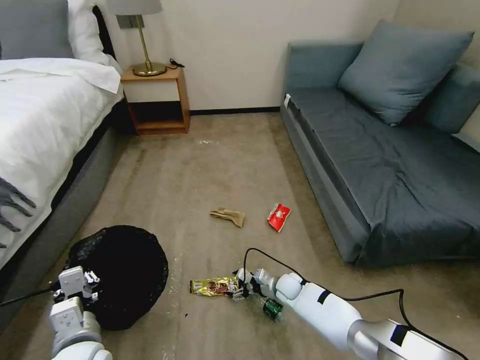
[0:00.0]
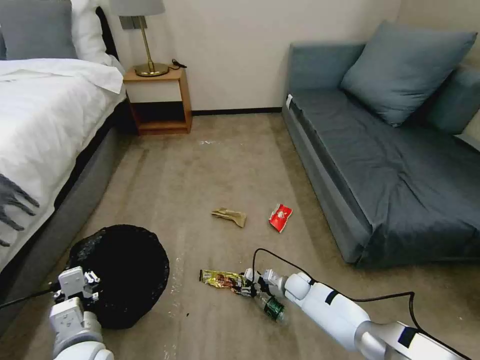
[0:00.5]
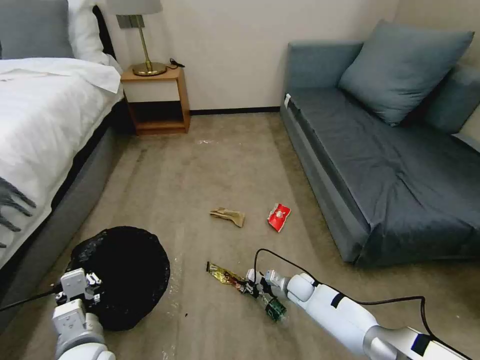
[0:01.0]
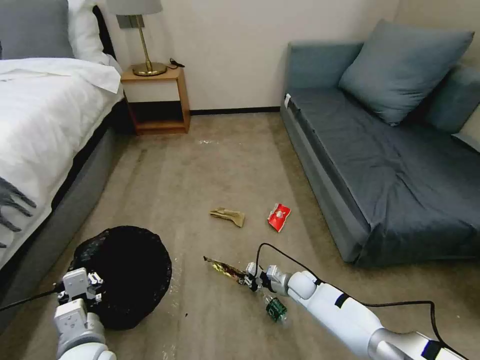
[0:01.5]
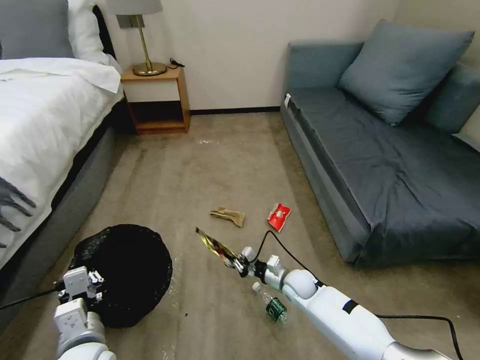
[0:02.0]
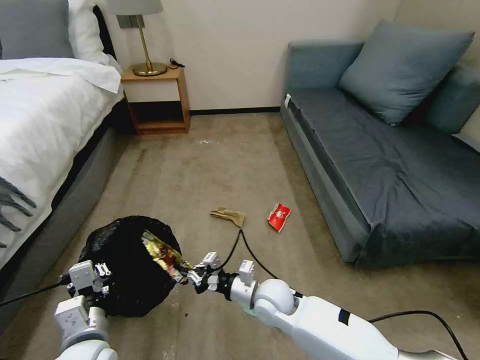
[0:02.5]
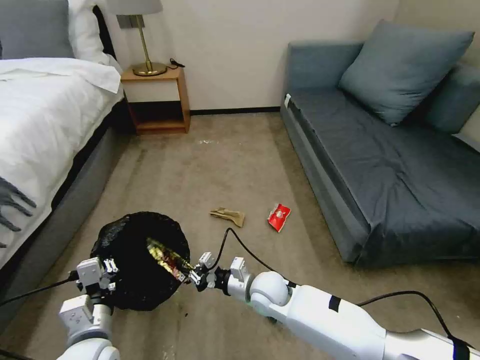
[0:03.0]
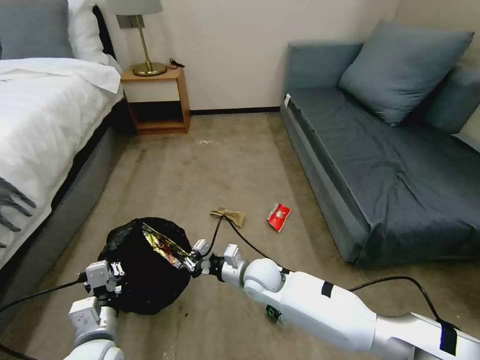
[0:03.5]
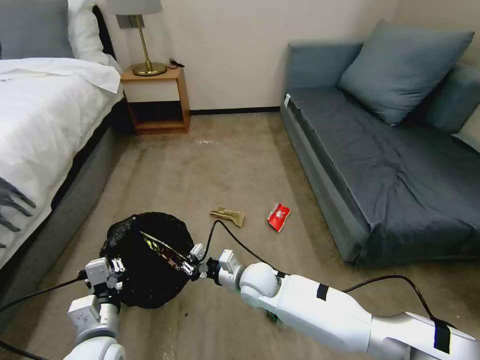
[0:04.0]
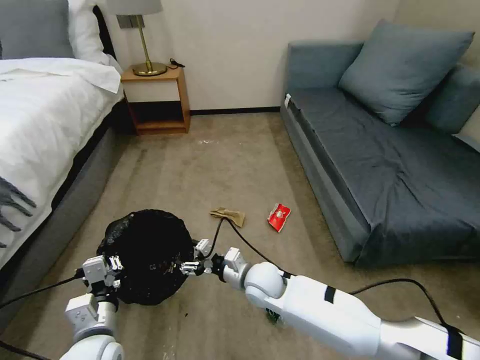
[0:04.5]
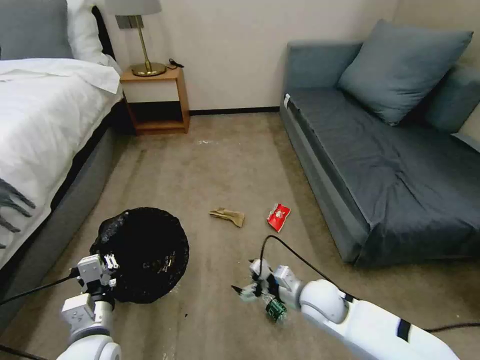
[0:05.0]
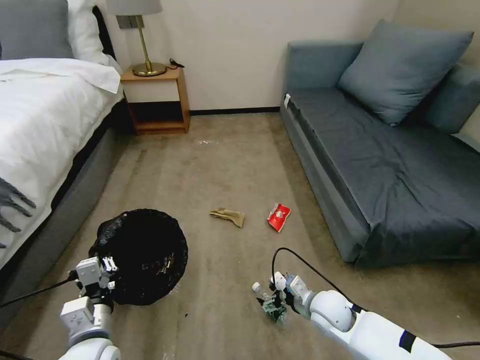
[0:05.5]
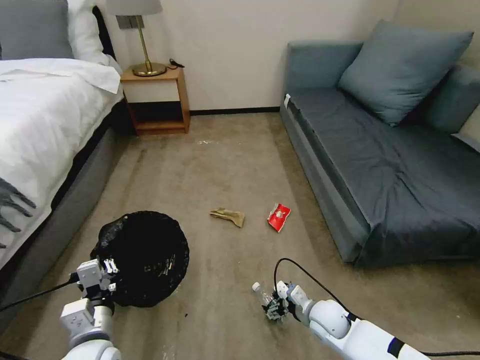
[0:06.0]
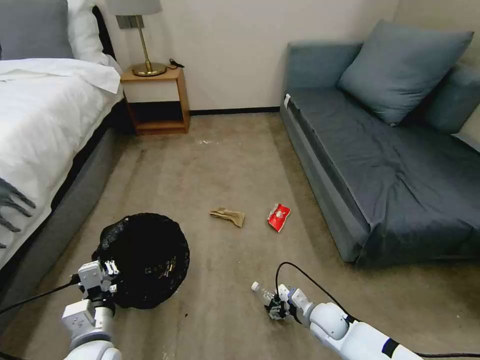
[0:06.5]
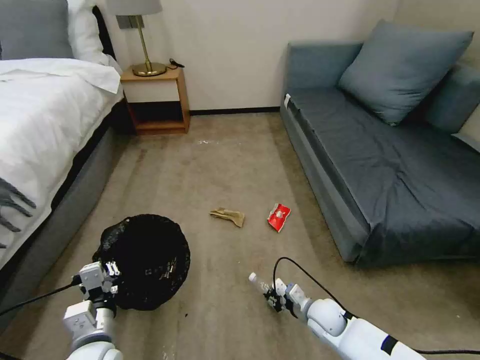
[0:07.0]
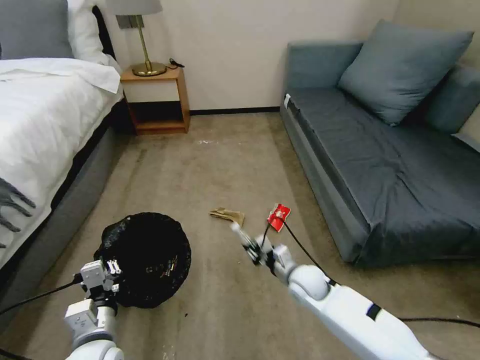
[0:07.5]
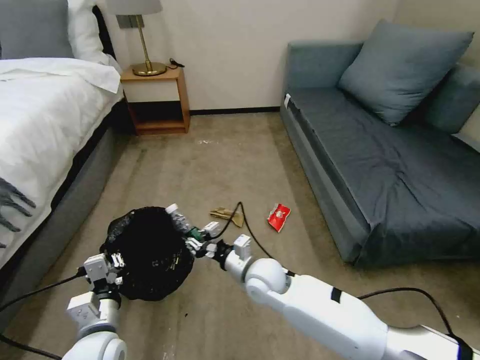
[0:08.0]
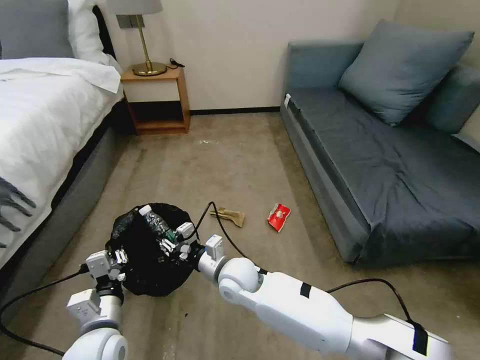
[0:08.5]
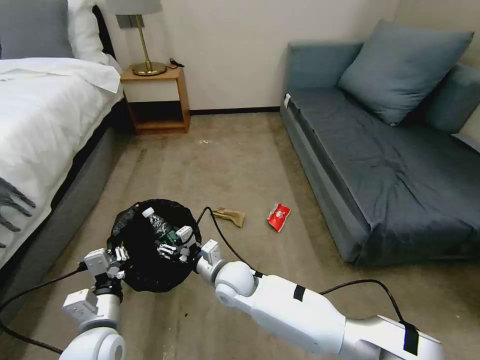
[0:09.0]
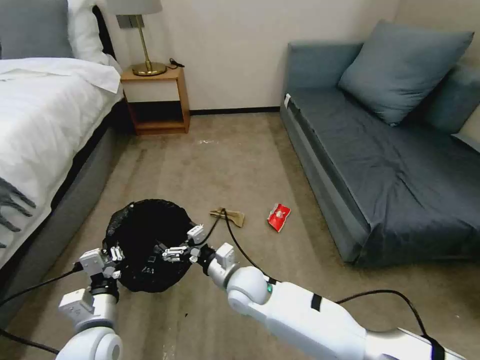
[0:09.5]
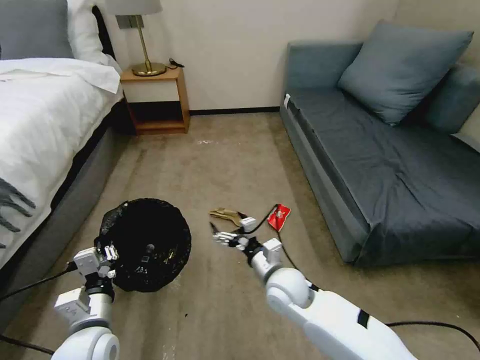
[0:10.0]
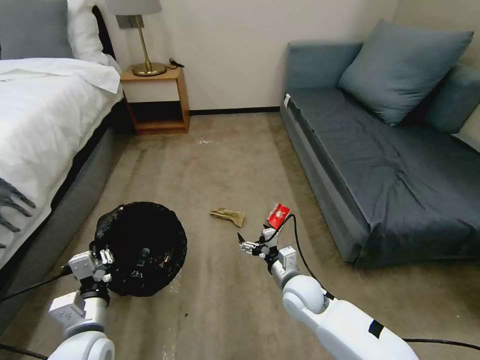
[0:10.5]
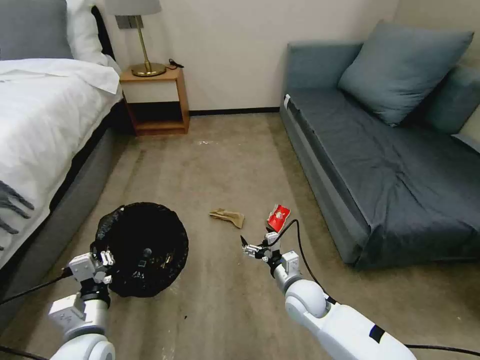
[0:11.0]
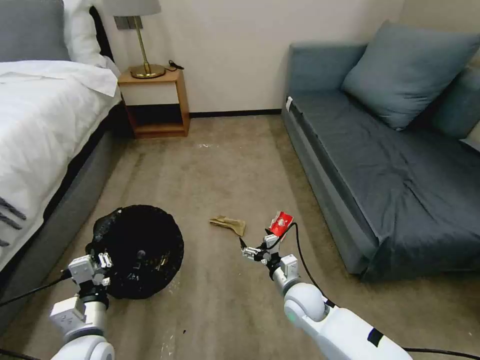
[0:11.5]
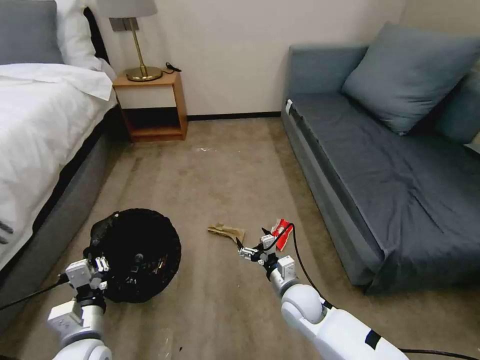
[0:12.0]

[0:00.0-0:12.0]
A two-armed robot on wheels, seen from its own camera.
Task of the whole recording: Pick up the trash bin, then pick up the garbage on the floor and place it into the trash bin.
0:00.0 to 0:02.0: The right gripper moves upward, some 5 cm, and closes up.
0:02.0 to 0:04.0: The right gripper shifts some 15 cm to the left and upward.
0:04.0 to 0:06.0: The right gripper heads to the right and downward, covering roughly 20 cm, and opens up.
0:06.0 to 0:08.0: The right gripper is displaced to the left and upward by about 20 cm, and closes.
0:08.0 to 0:10.0: The right gripper opens its fingers.
0:10.0 to 0:12.0: The right gripper shifts about 5 cm downward.

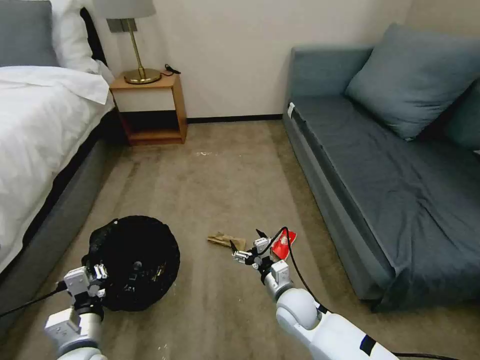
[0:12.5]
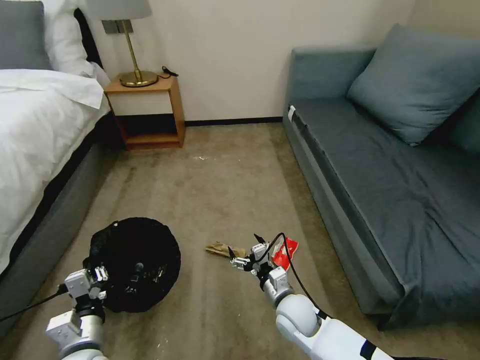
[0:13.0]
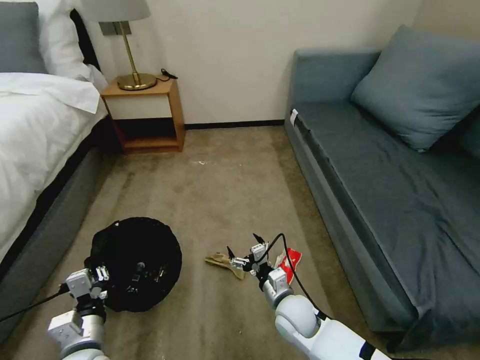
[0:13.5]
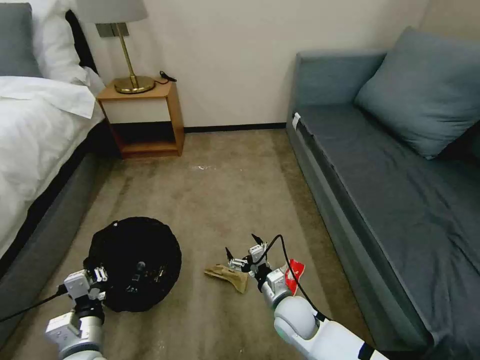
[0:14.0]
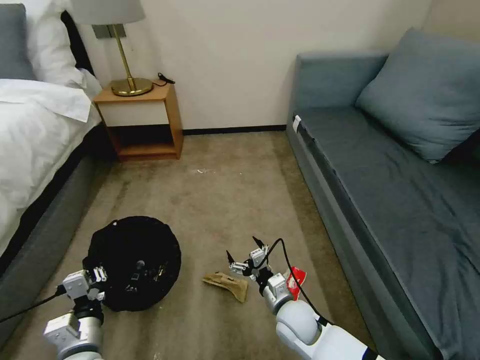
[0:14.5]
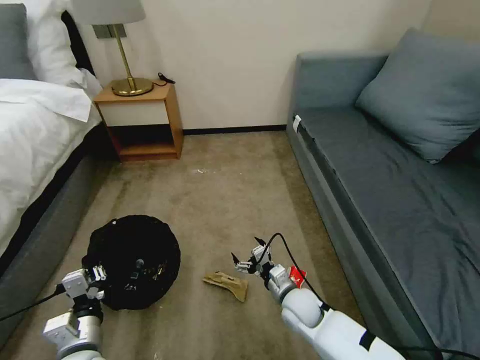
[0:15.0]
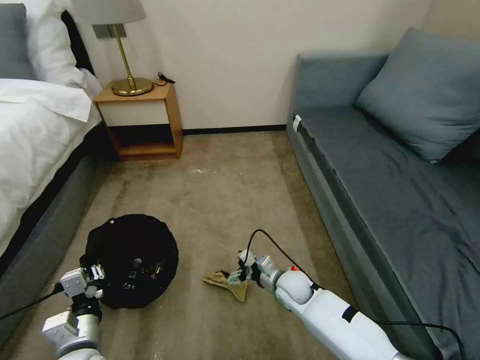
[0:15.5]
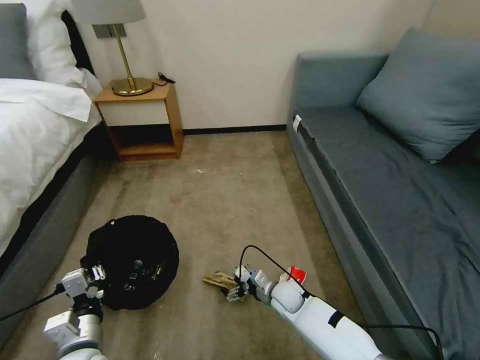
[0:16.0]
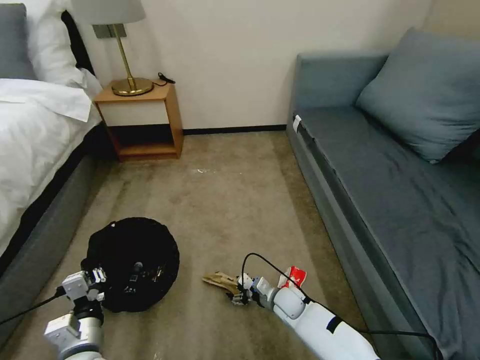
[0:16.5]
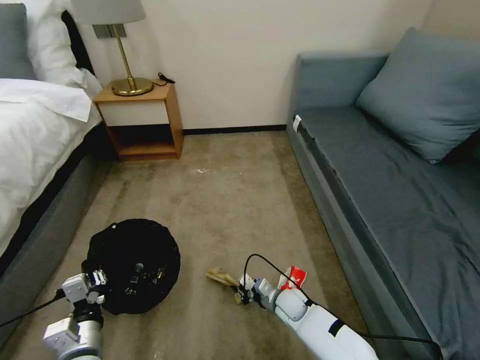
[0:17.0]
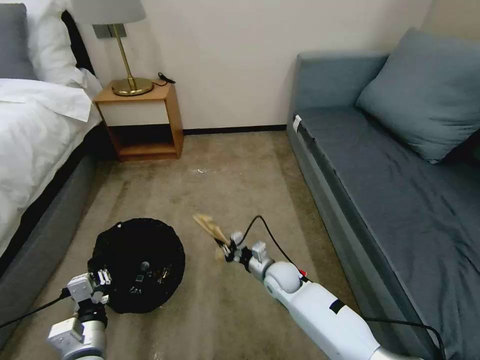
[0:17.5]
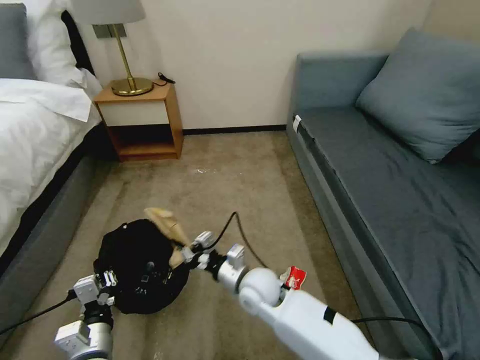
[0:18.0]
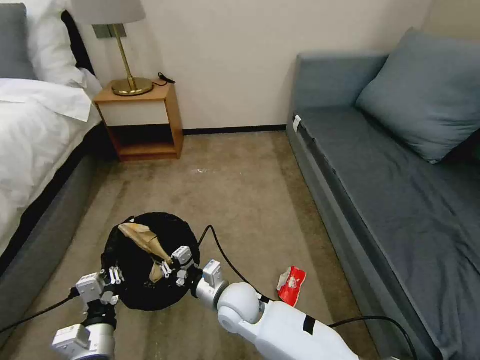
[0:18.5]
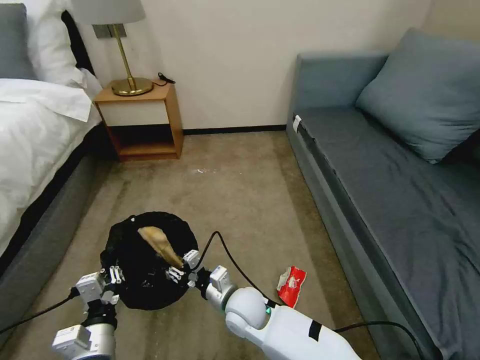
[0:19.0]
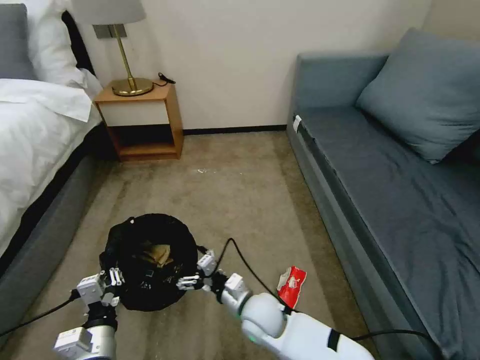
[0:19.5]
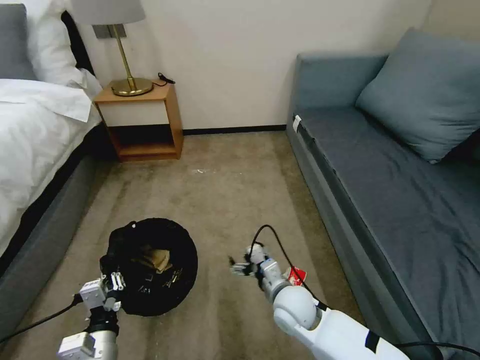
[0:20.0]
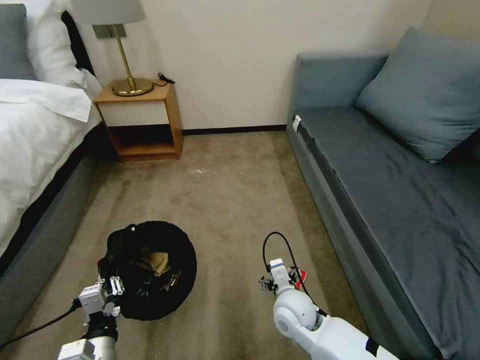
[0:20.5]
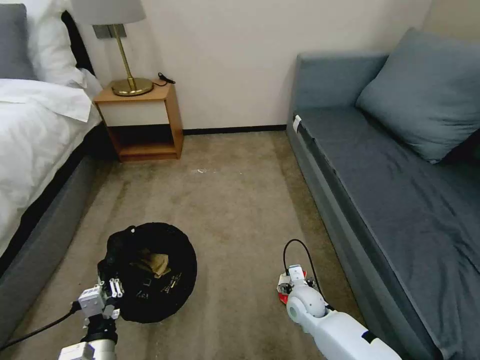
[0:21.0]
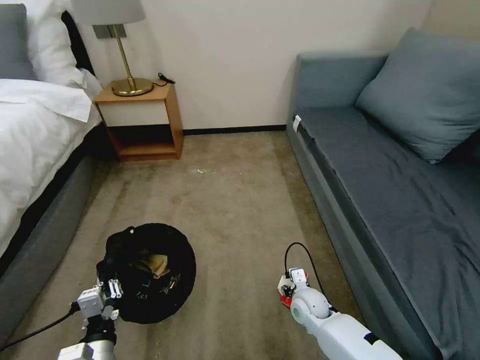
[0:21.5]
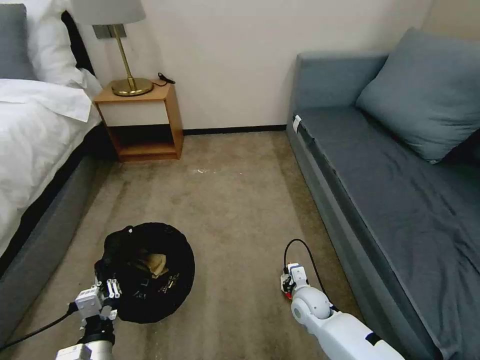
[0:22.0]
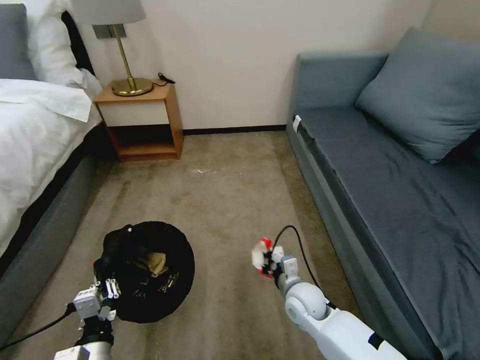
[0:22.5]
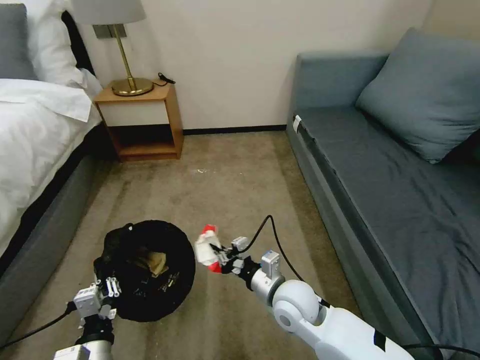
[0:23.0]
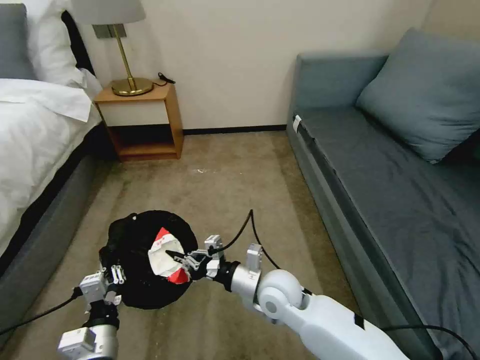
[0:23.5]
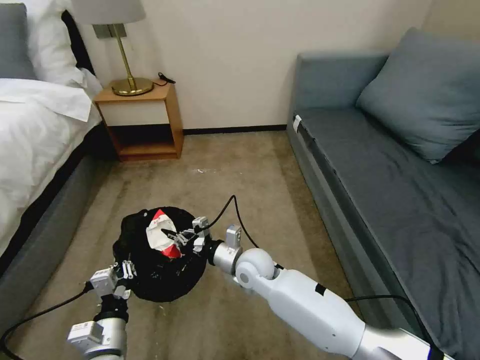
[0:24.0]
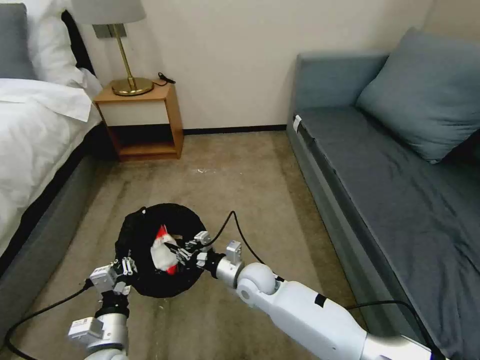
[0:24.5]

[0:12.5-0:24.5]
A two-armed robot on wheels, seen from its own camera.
Task of the whole recording: Pick up the trash bin, then pick up the garbage on the floor and place it into the trash bin.
0:14.5 to 0:16.5: The right gripper is displaced downward and forward by some 15 cm.
0:16.5 to 0:18.5: The right gripper goes roughly 25 cm upward and to the left, and closes.
0:18.5 to 0:20.5: The right gripper is displaced to the right by roughly 15 cm, and opens its fingers.
0:20.5 to 0:22.5: The right gripper goes downward and returns, some 10 cm each way, and closes up.
0:22.5 to 0:24.5: The right gripper is displaced to the left by approximately 15 cm, while the left gripper travels forward by about 5 cm.

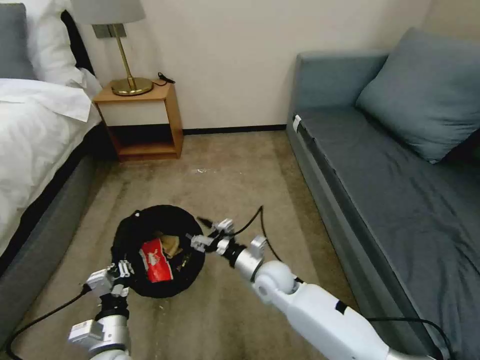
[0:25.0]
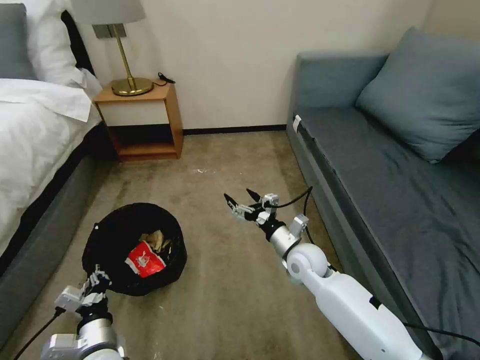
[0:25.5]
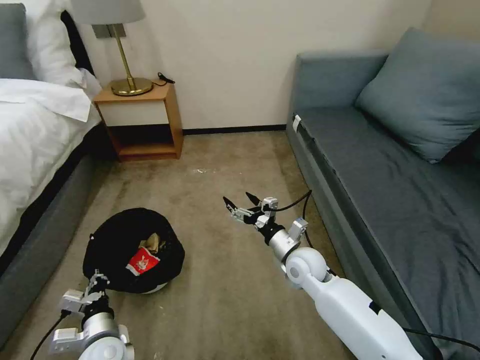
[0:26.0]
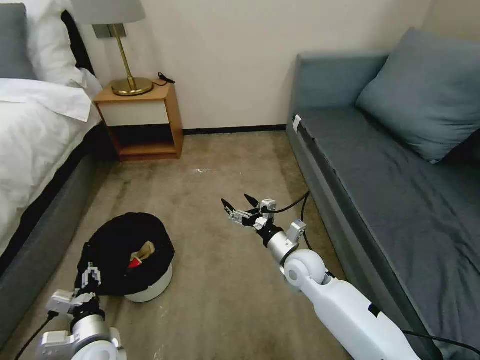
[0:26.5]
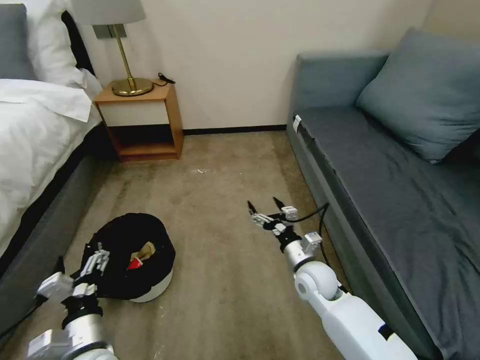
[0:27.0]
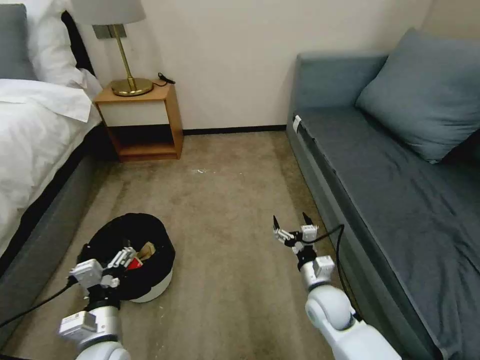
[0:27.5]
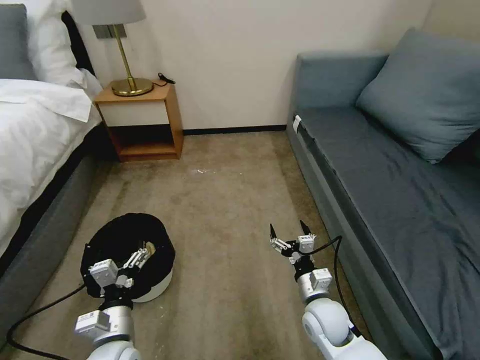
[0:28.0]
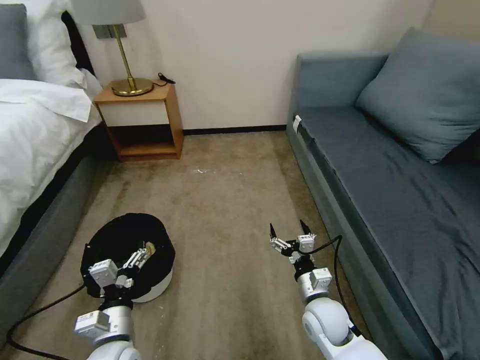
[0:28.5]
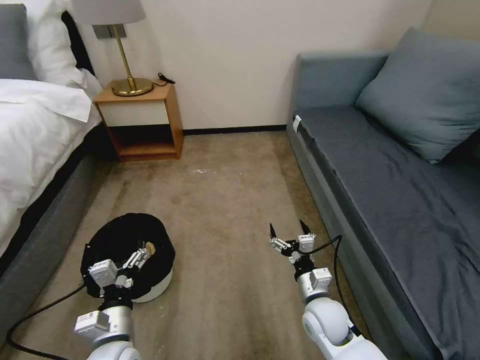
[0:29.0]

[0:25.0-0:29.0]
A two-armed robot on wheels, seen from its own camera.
Task of the whole recording: Pick up the trash bin, then pick up the garbage on the floor and place it into the trash bin.
0:25.0 to 0:27.0: The left gripper opens its fingers, while the right gripper moves to the right, about 10 cm.
0:27.0 to 0:29.0: The right gripper shifts approximately 10 cm backward.
